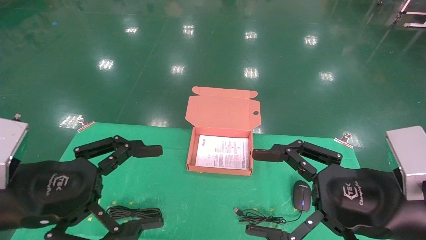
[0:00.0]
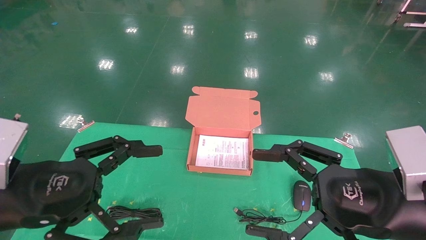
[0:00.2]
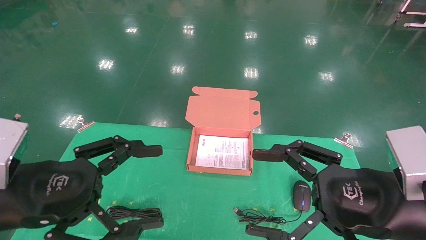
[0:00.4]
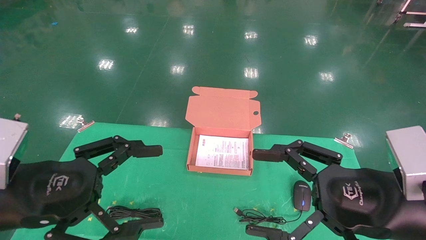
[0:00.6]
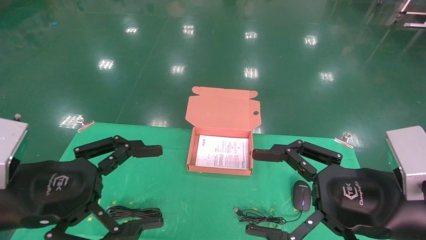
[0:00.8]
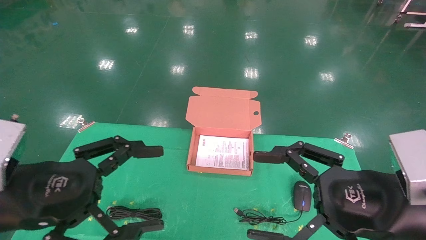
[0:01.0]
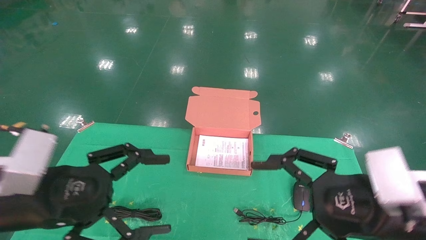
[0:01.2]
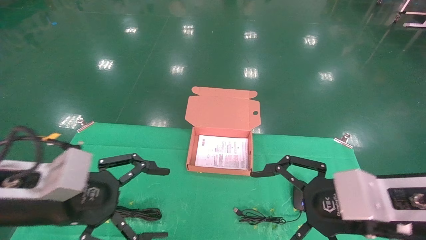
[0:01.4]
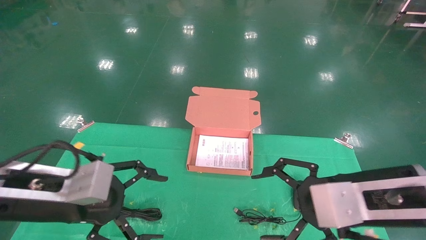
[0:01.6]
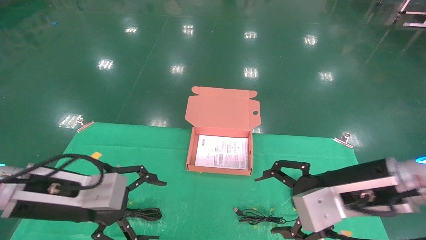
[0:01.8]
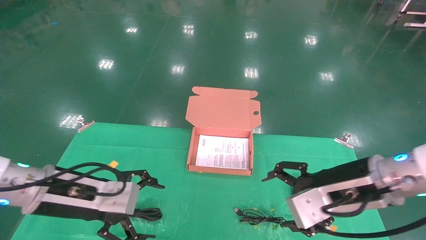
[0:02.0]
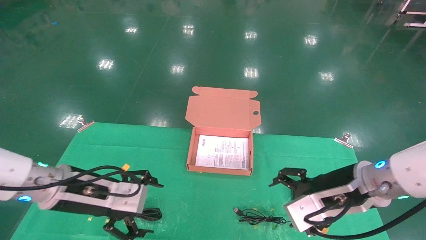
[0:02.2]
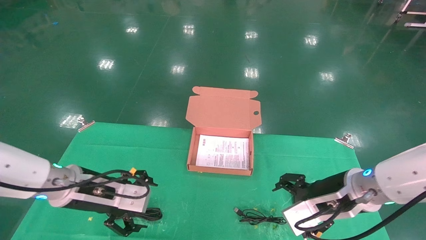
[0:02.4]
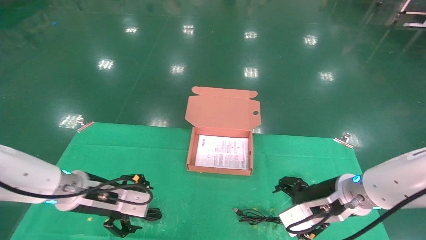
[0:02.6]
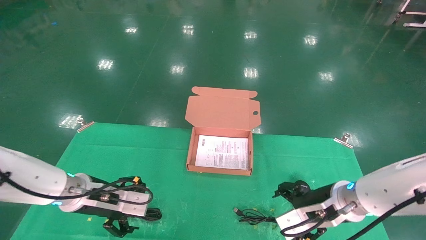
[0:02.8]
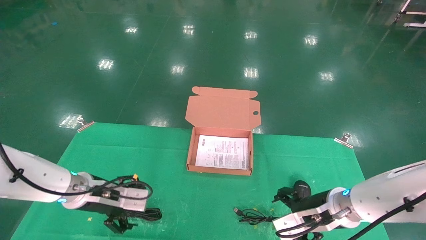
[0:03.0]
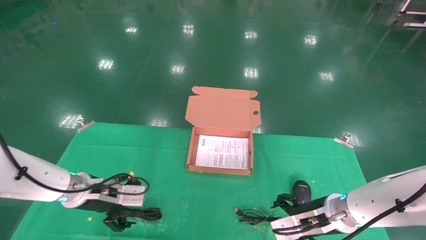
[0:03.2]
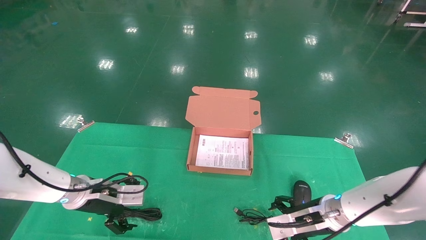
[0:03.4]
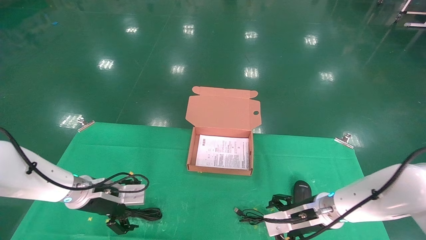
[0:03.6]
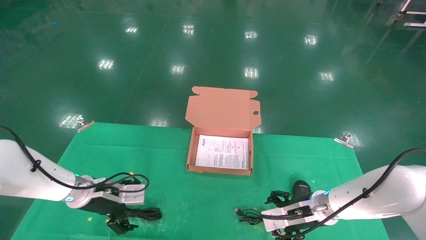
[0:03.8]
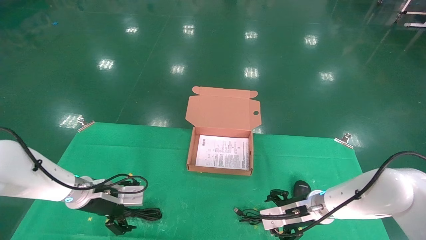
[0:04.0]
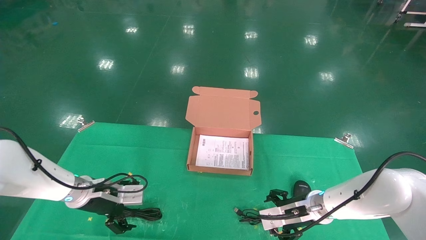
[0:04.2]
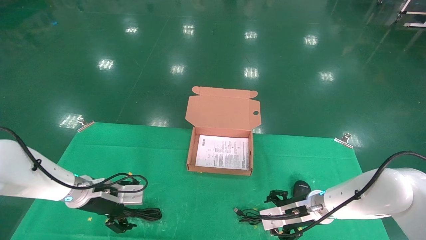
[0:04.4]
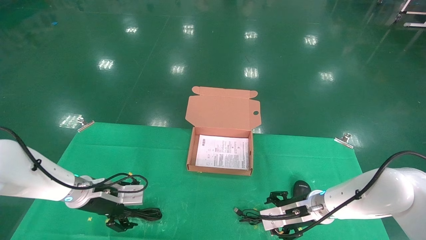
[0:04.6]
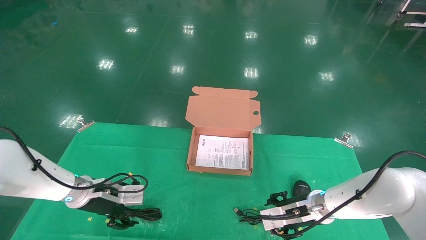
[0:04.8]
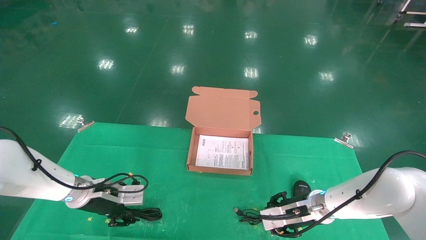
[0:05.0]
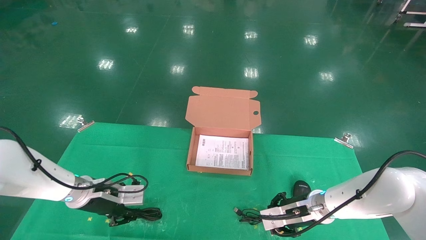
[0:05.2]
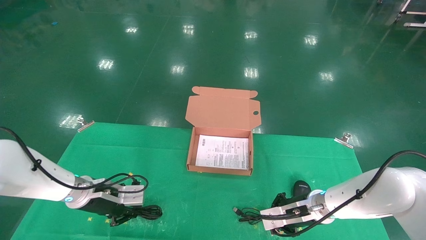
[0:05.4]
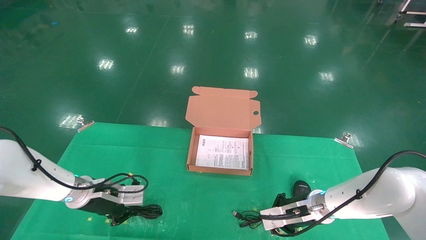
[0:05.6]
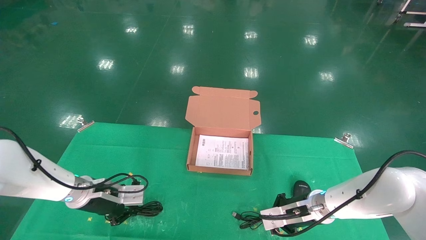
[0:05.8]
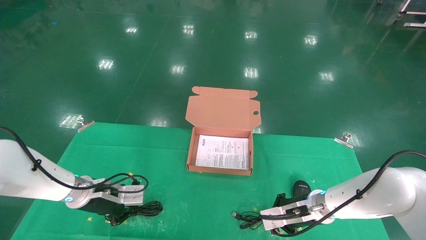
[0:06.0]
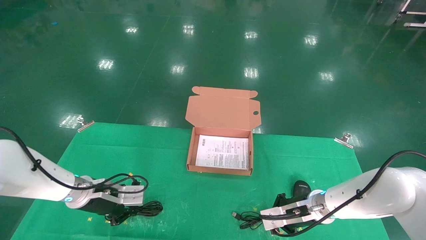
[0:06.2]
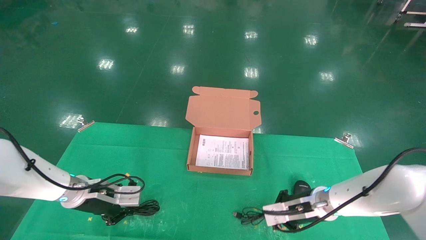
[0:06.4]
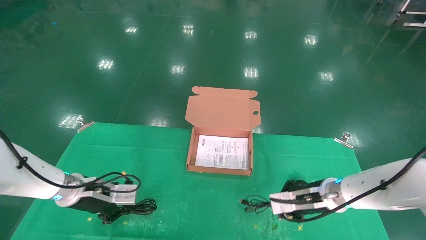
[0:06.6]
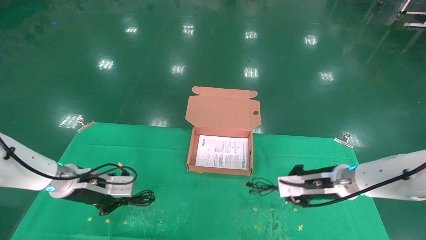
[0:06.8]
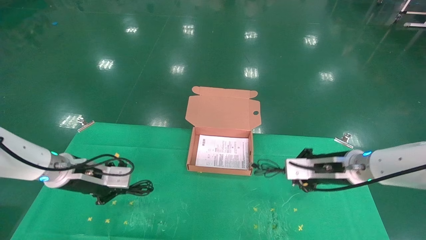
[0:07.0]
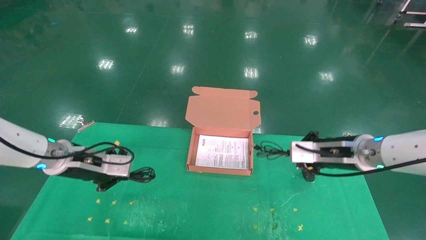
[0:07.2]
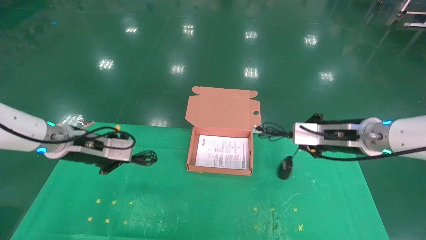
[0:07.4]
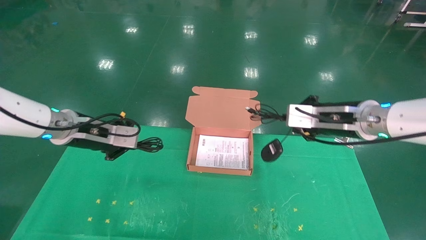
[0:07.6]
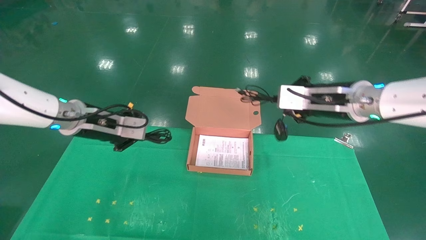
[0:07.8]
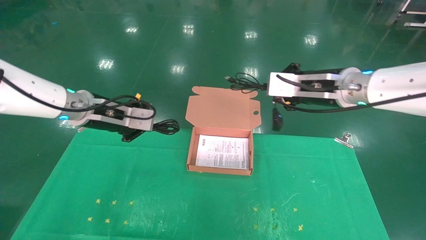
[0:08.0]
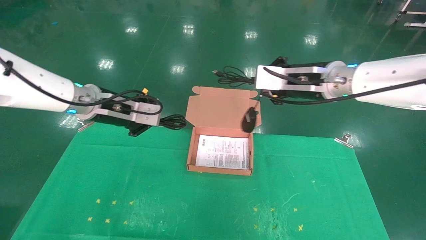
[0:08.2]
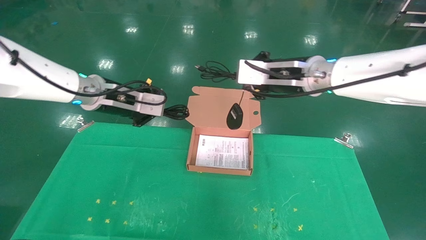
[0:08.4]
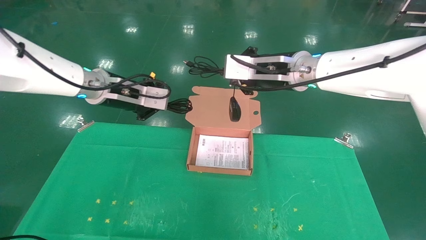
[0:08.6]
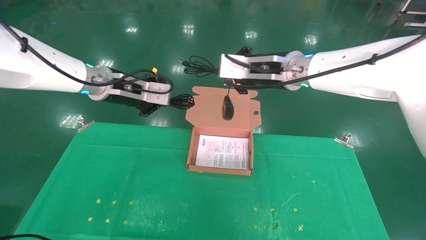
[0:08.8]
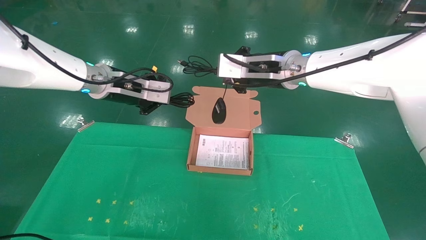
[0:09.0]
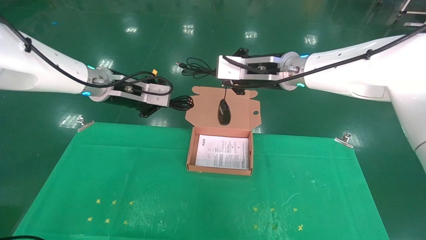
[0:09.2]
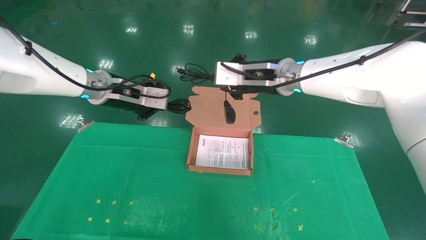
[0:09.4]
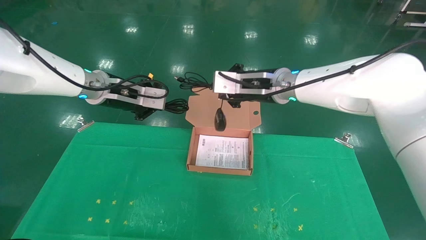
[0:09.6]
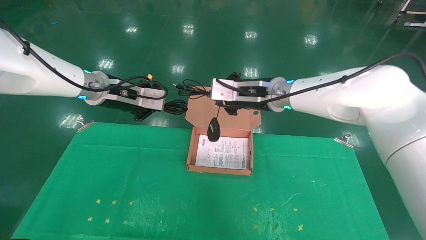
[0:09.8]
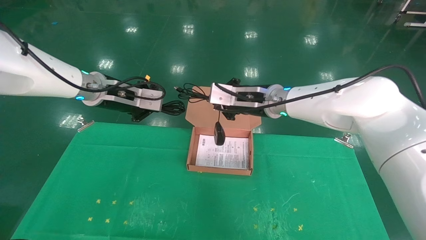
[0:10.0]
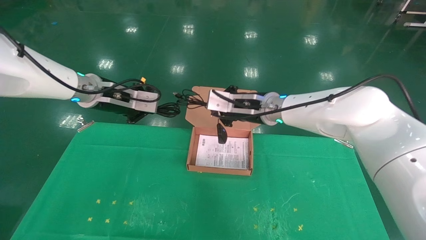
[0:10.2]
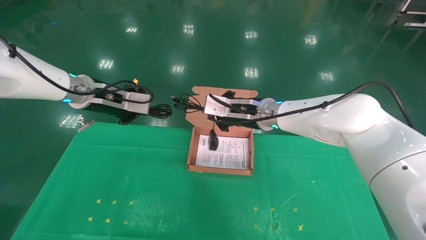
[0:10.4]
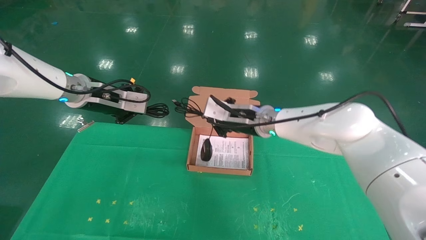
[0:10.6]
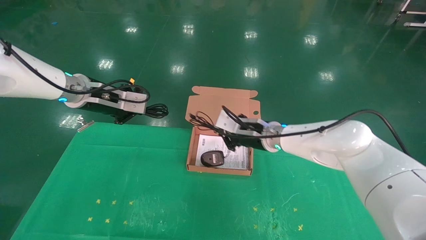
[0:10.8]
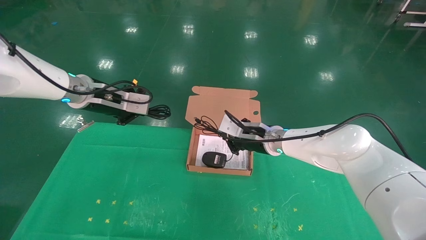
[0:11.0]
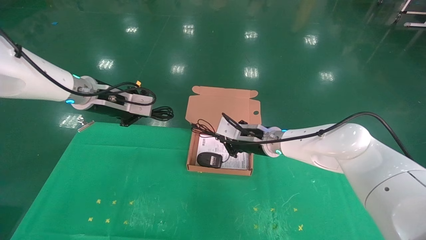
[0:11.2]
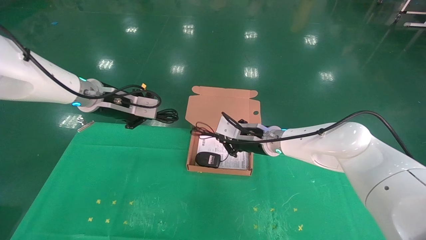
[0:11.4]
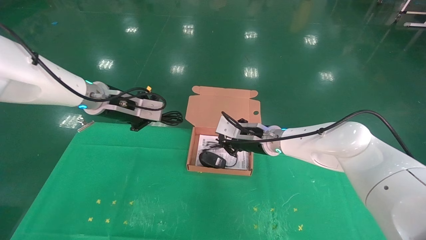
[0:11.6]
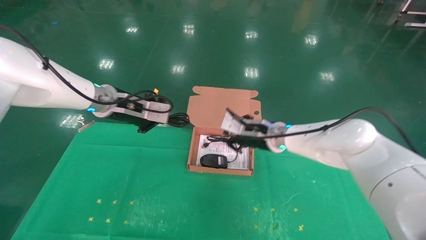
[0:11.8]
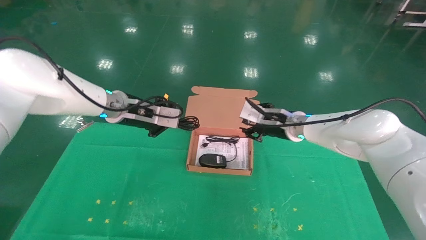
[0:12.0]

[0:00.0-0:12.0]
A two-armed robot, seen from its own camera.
Task of the whole recording: grasp data cable left put into box grasp mouse right put into box.
Step, 0:01.4 to 0:05.8: Grab and pick up both the mouse and power cord from the accessory packaging area at the same time.
0:00.0 to 0:01.6: The right gripper moves roughly 5 cm. Meanwhile the left gripper goes about 5 cm forward.
0:01.6 to 0:03.0: The right gripper heads downward and forward, covering some 15 cm. The left gripper is displaced forward and downward by approximately 15 cm.
0:03.0 to 0:04.4: The left gripper moves roughly 5 cm, while the right gripper moves forward and downward, approximately 10 cm.
0:04.4 to 0:06.0: The left gripper closes. The right gripper closes.
0:06.0 to 0:07.6: The two grippers go approximately 20 cm upward.
0:07.6 to 0:09.0: The left gripper travels upward and to the right by approximately 10 cm; the right gripper shifts about 15 cm to the left and upward.
0:09.0 to 0:10.4: The right gripper heads downward, covering some 10 cm.
0:10.4 to 0:12.0: The two grippers go roughly 5 cm to the right.

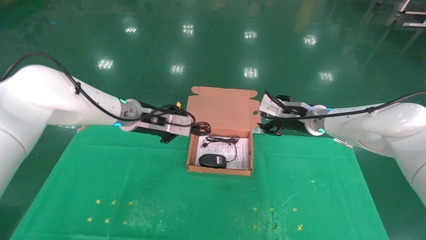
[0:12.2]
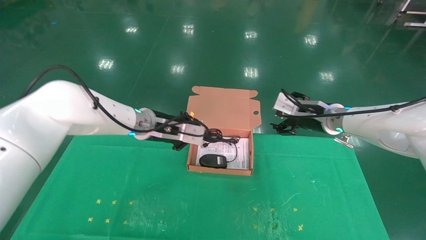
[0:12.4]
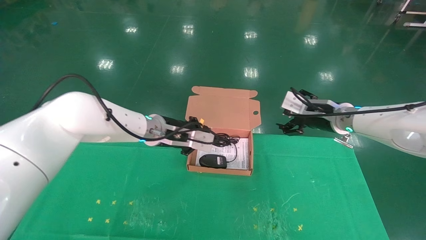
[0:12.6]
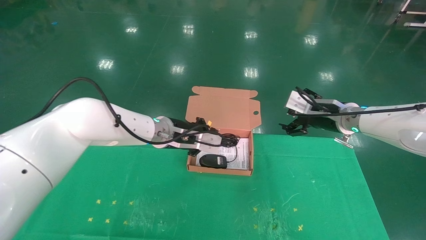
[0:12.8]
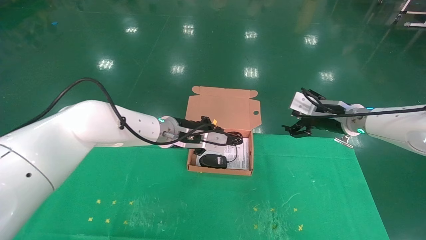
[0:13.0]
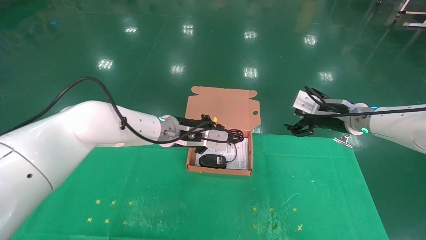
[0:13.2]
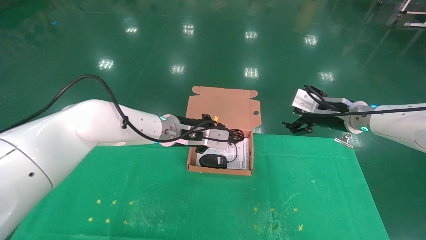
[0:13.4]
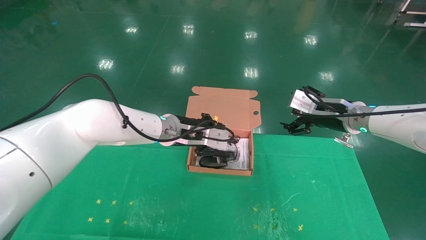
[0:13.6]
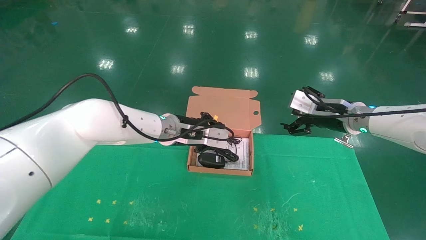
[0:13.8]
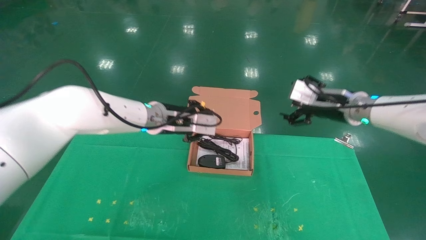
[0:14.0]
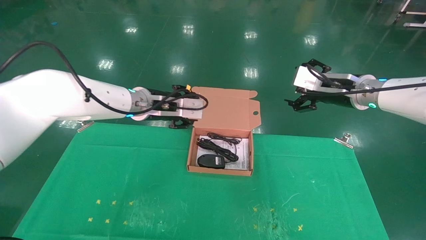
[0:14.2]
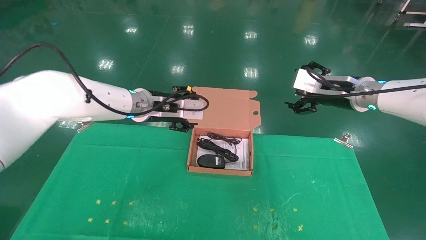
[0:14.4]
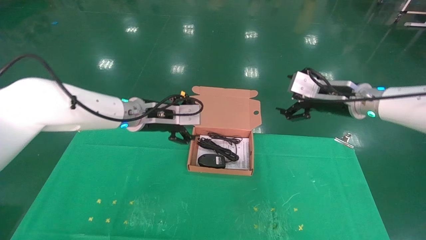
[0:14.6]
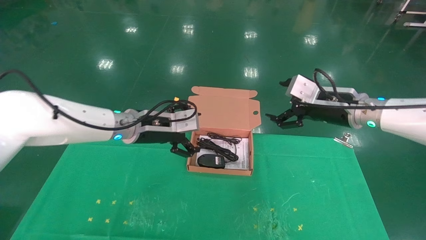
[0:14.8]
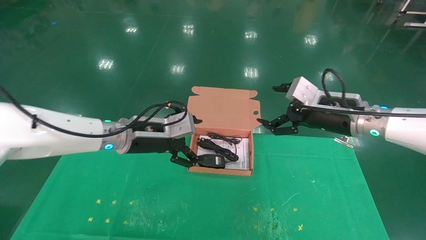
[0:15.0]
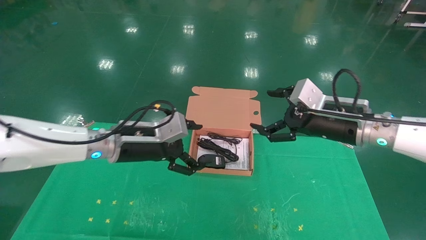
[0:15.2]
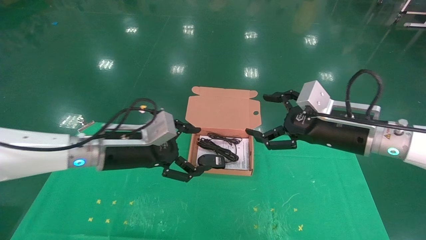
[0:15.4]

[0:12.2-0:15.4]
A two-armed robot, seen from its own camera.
Task of the whole recording: grasp data cable left put into box grasp mouse right put into box.
0:12.2 to 0:13.8: The two grippers go some 10 cm to the right. The right gripper opens up.
0:13.8 to 0:15.4: The right gripper heads backward, covering approximately 10 cm. Meanwhile the left gripper shifts some 15 cm backward and to the left, and opens up.
